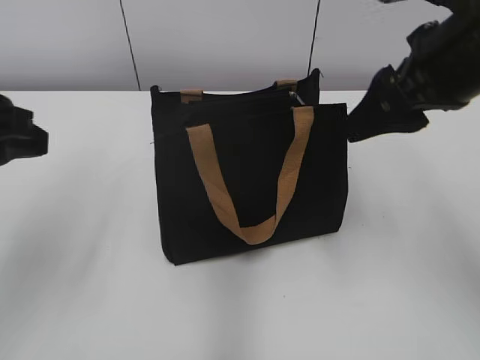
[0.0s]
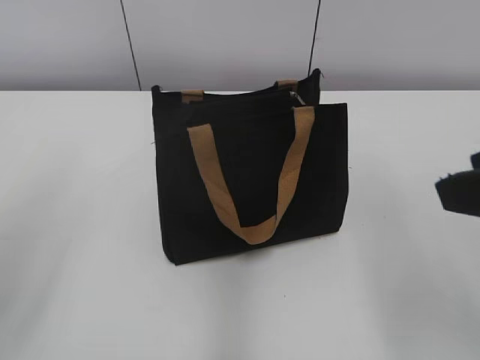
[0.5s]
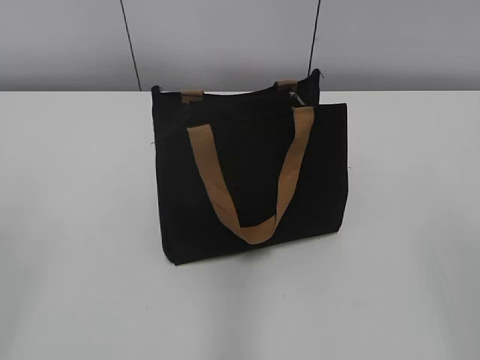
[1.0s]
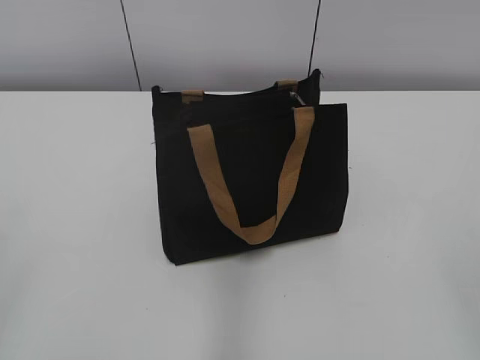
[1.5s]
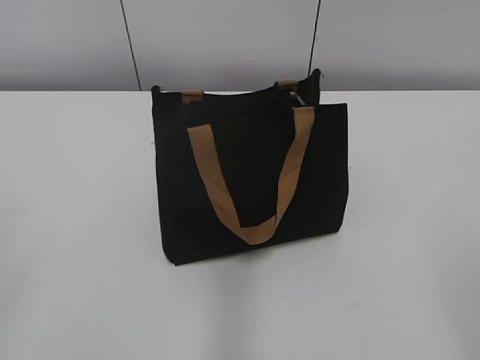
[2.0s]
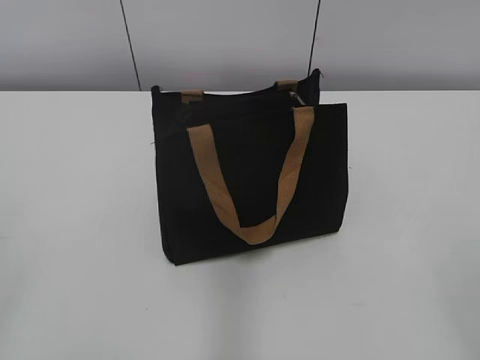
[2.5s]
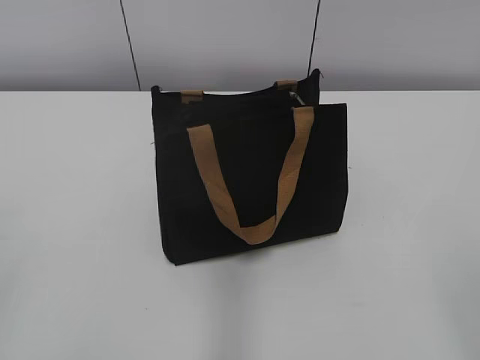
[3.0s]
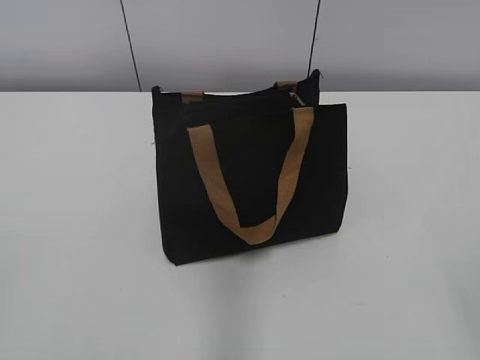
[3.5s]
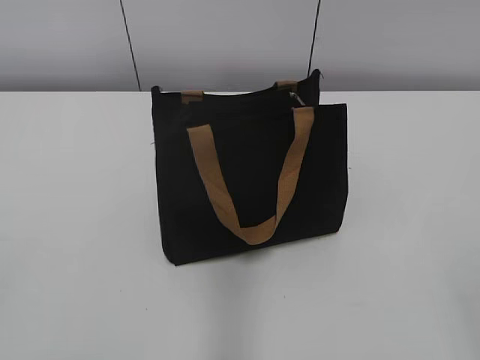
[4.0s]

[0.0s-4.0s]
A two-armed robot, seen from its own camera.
0.0s to 2.0s: The right gripper goes approximately 25 cm backward, while the left gripper shifts roughly 20 cm backward and to the left.
